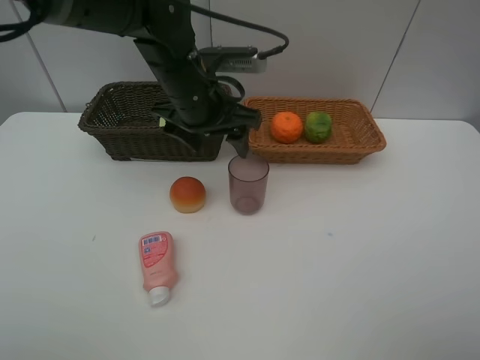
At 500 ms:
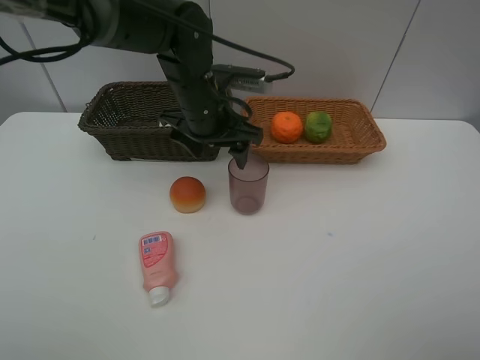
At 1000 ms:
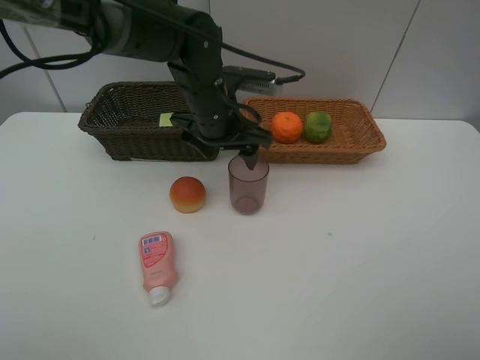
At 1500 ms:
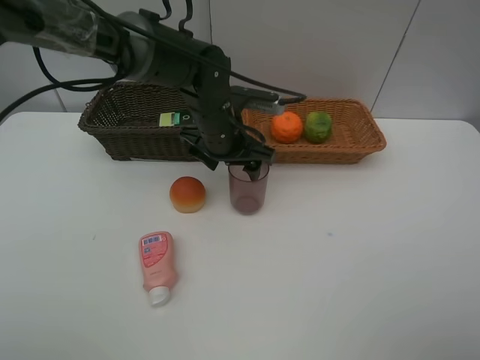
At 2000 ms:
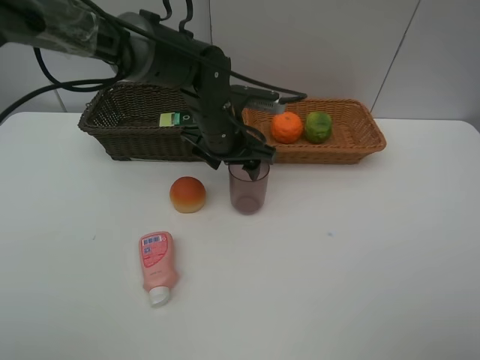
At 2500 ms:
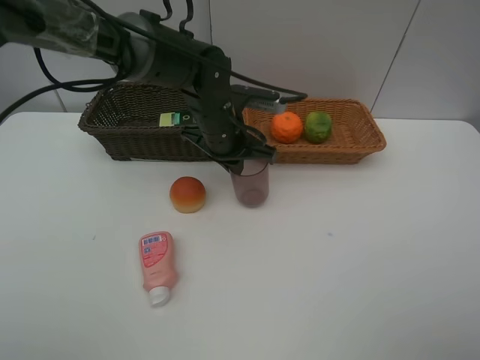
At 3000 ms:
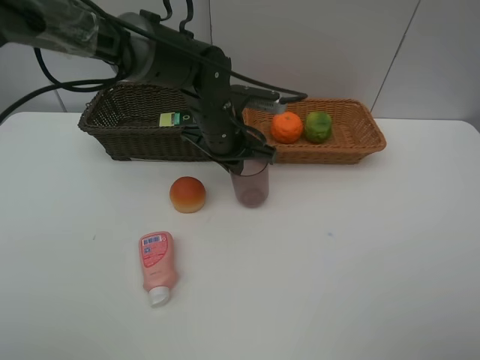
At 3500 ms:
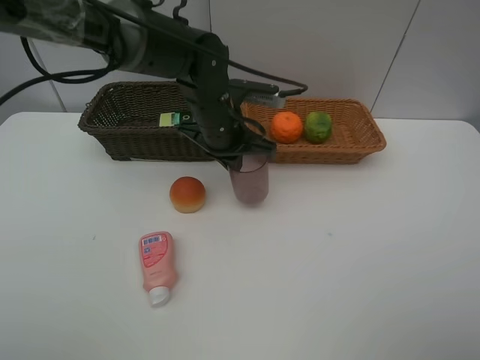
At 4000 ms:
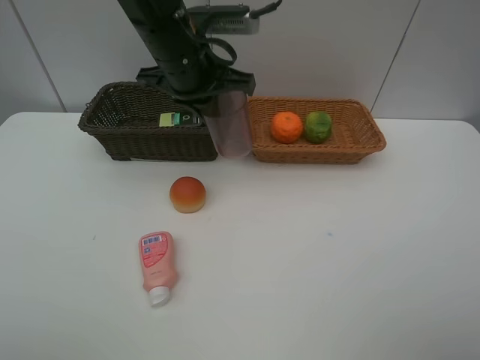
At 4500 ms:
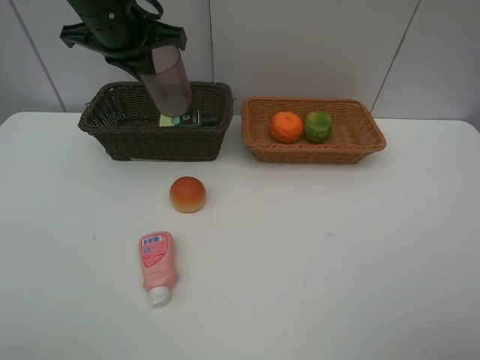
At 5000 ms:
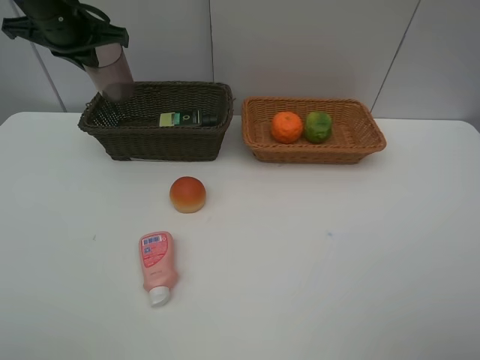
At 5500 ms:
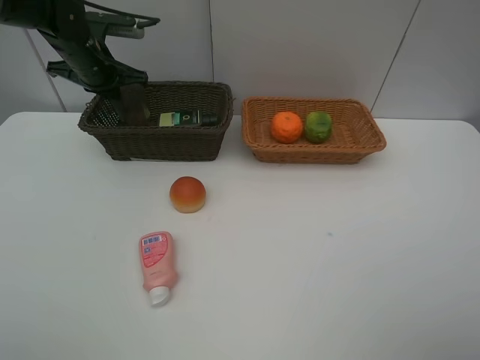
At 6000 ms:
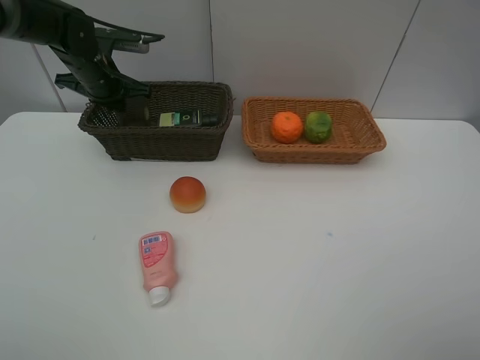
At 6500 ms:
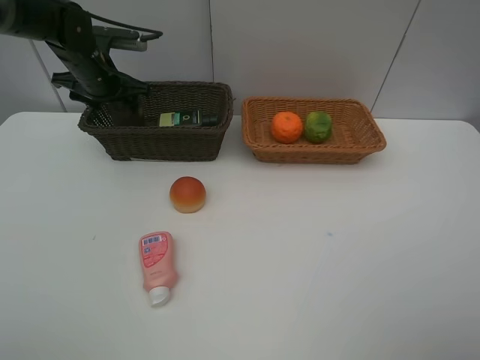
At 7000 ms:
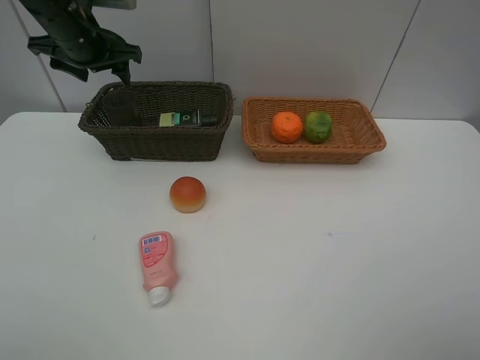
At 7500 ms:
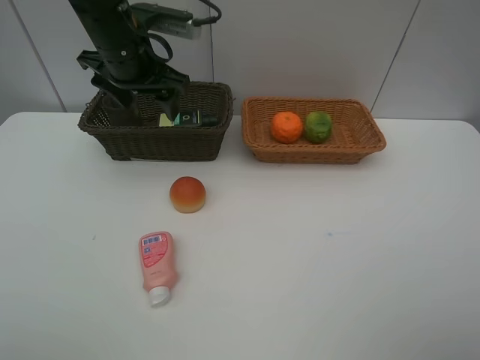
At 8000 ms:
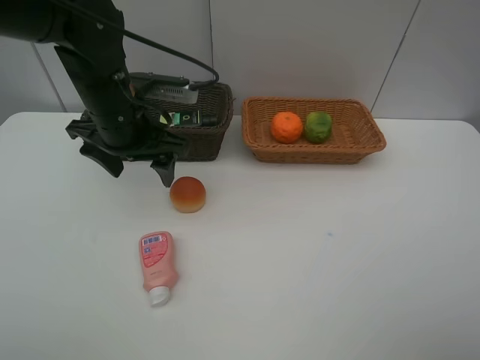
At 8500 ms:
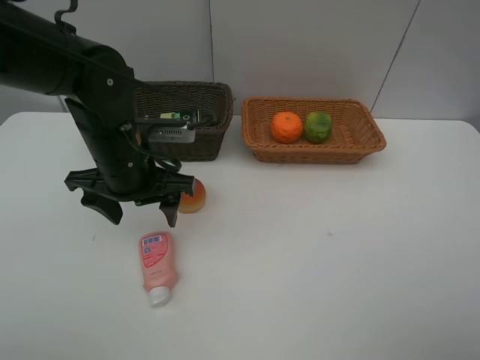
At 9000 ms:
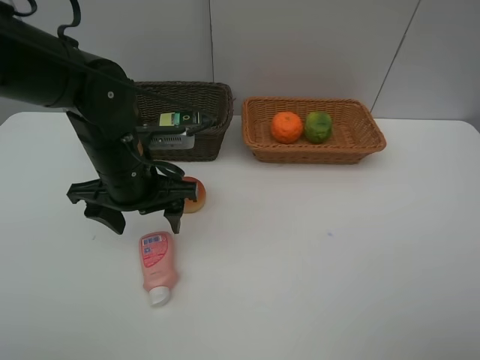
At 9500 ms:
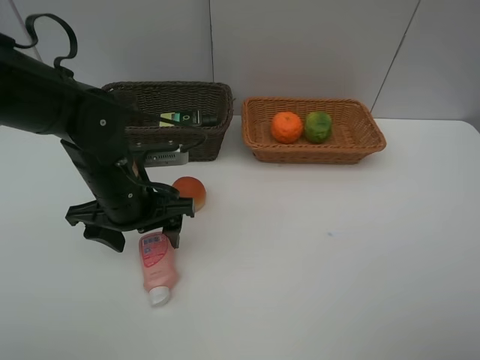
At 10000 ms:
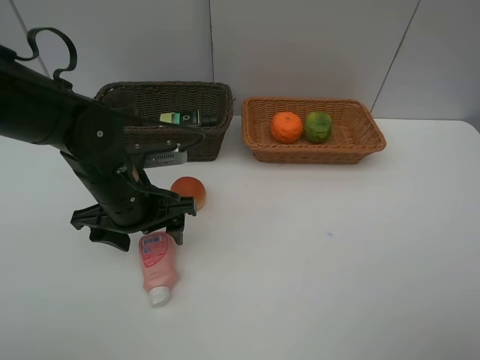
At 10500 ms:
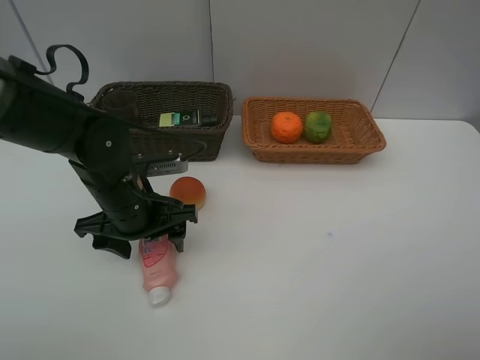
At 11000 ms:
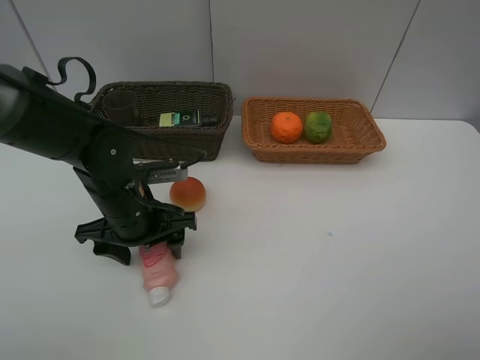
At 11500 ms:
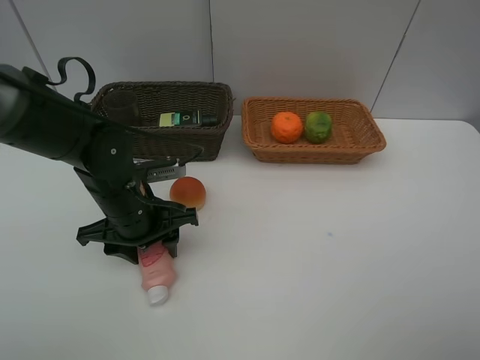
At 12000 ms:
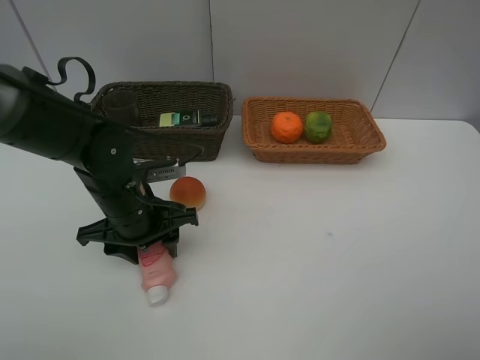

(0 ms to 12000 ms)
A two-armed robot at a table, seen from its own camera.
Task of the whole recording: place multiple objects separately in different baskets.
0 ms - 2000 ms: The left gripper travels downward by roughly 5 cm.
2000 ms - 4000 ms: The left gripper shifts roughly 10 cm upward, and closes.
4000 ms - 6000 ms: The left gripper moves to the left, forward and downward, approximately 20 cm.
6000 ms - 8000 ms: The left gripper goes approximately 20 cm backward and to the right, and opens up.
8000 ms - 10000 ms: The left gripper goes about 10 cm downward and backward.
10000 ms - 12000 ms: The grippers move only a little.

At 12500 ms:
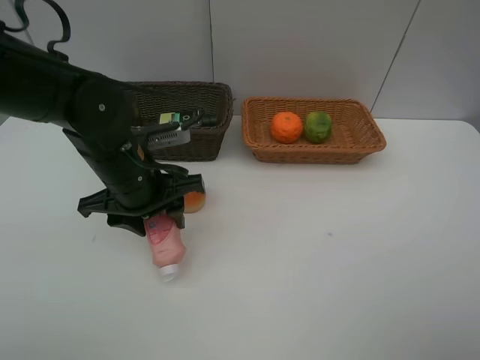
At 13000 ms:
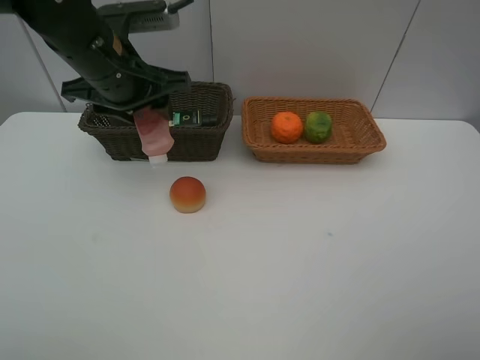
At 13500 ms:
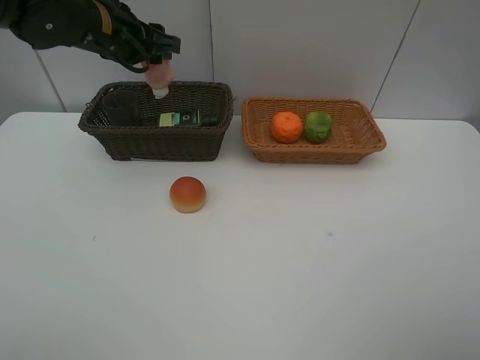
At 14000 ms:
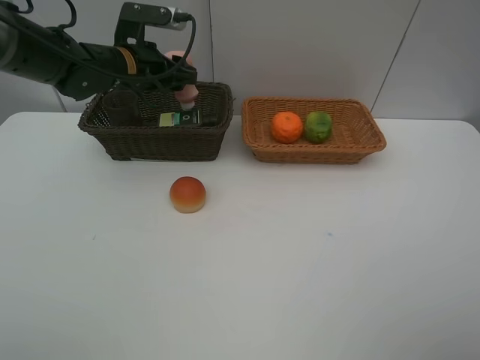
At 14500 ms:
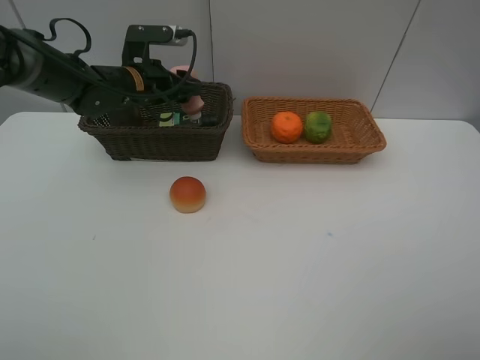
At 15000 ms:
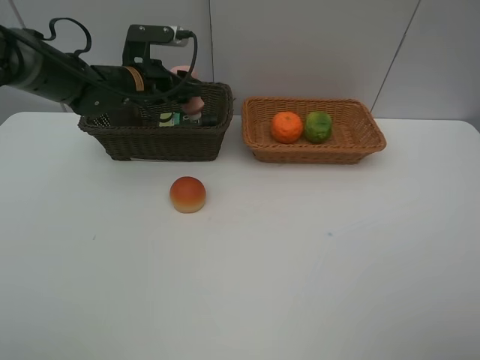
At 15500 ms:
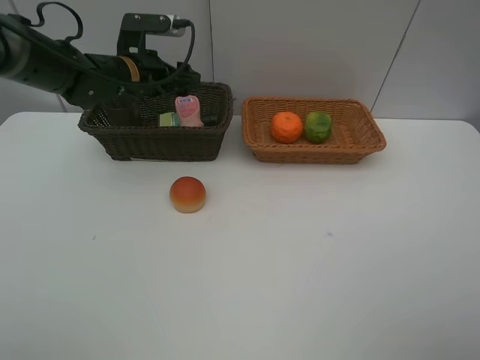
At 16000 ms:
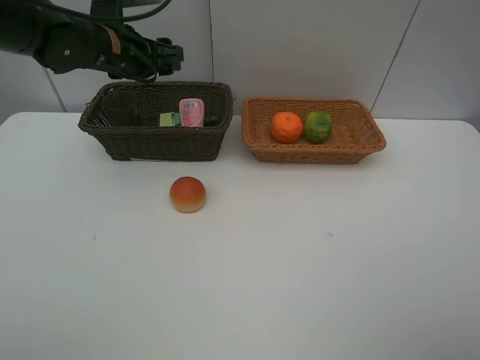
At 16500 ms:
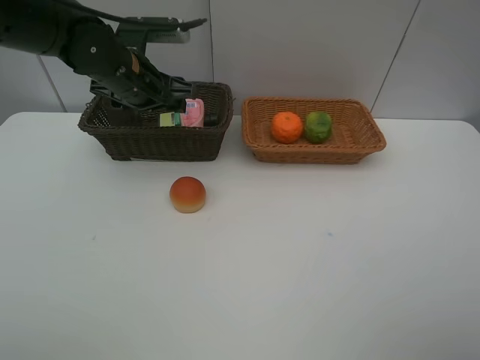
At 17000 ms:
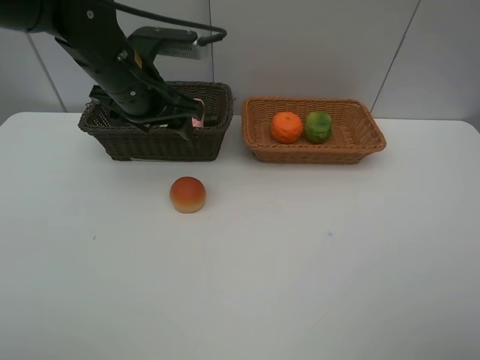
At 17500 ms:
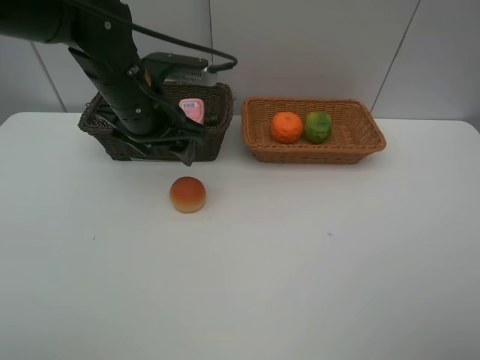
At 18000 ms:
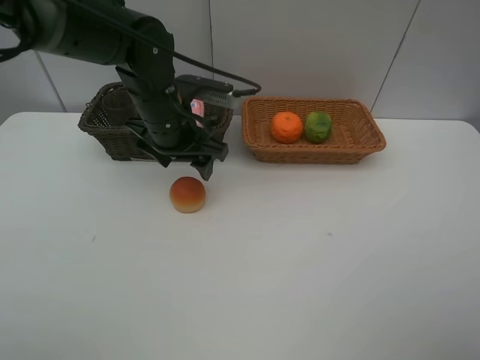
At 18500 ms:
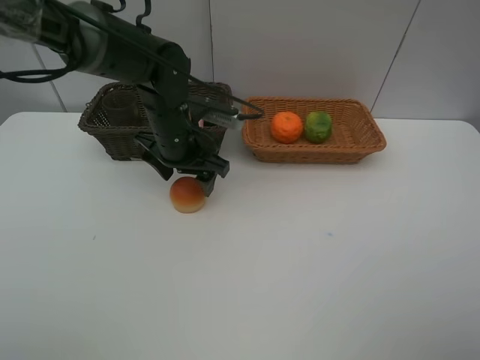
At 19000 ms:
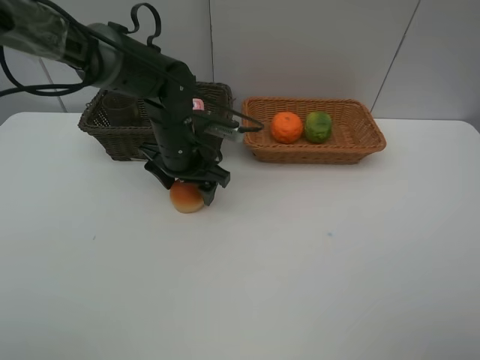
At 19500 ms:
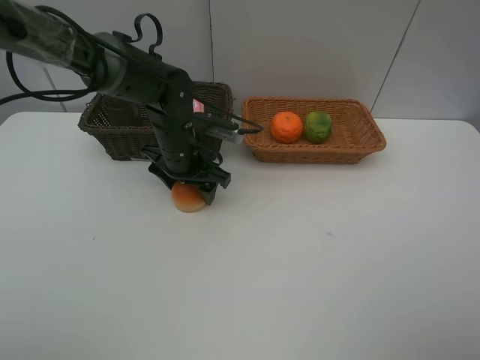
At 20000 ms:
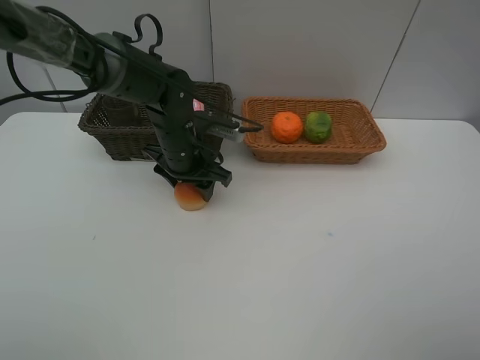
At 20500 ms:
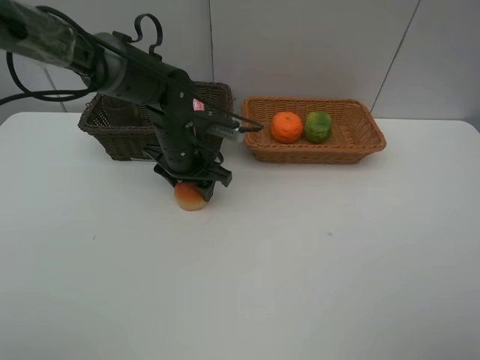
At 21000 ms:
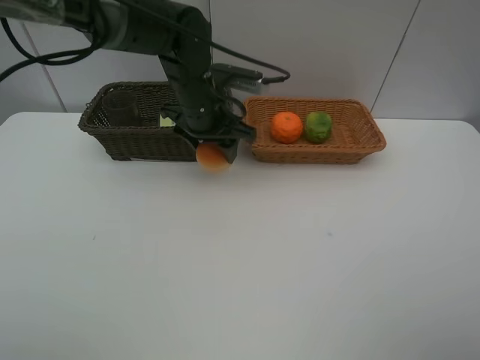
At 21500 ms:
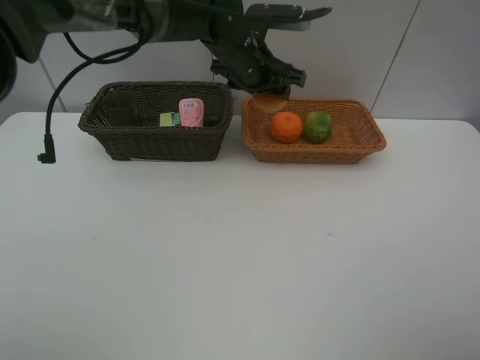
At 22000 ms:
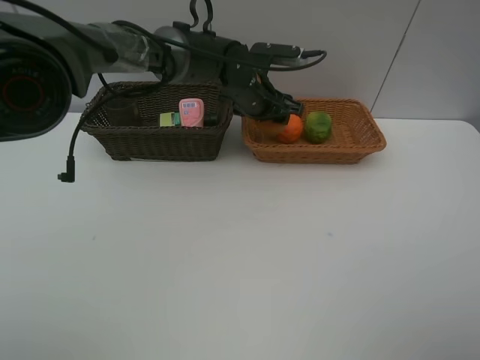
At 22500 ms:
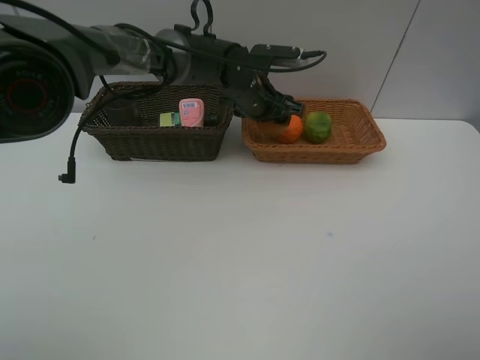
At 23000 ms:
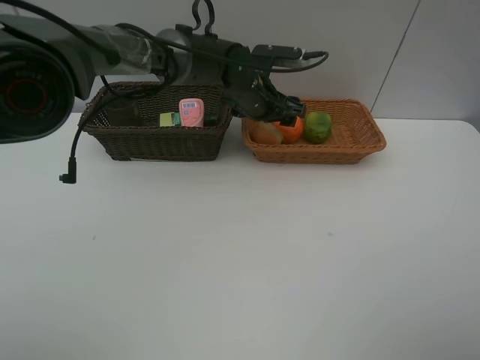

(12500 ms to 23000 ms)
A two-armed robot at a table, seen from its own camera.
Task of the whole recording: place multiple objects separately in different baskets.
12500 ms - 14500 ms: The left gripper is displaced forward by some 15 cm.
14500 ms - 16500 ms: The left gripper goes some 5 cm backward.
16500 ms - 19000 ms: The left gripper heads downward and to the right, covering some 10 cm.
19000 ms - 21000 ms: The left gripper heads upward, covering about 5 cm.
21000 ms - 23000 ms: The left gripper goes about 10 cm to the right and forward.

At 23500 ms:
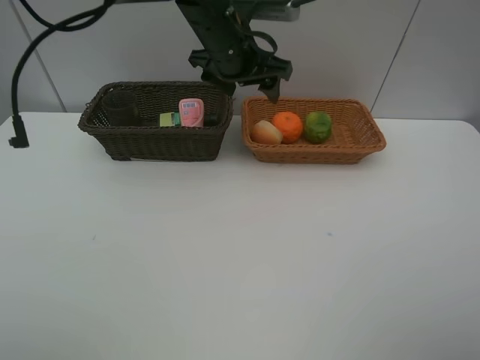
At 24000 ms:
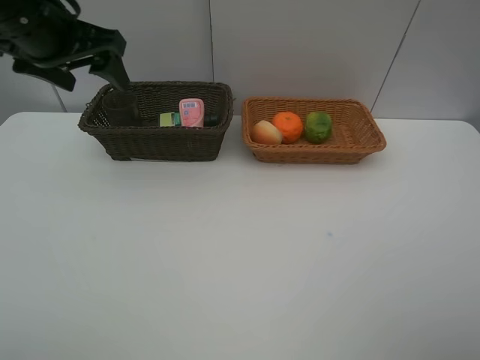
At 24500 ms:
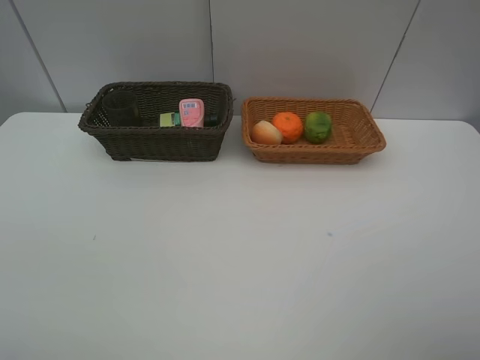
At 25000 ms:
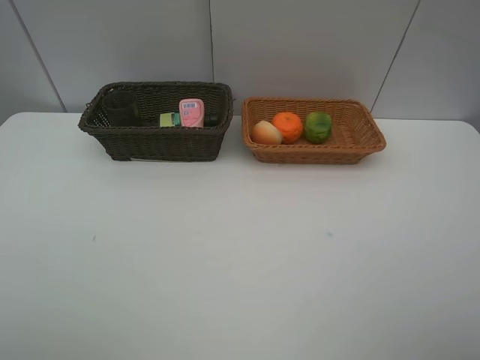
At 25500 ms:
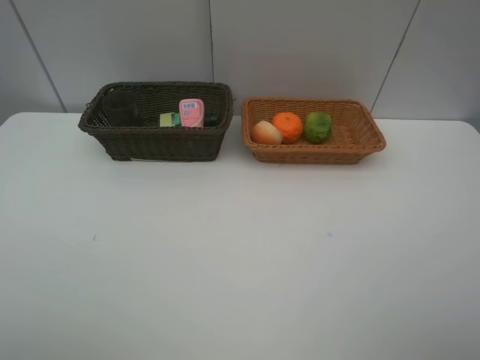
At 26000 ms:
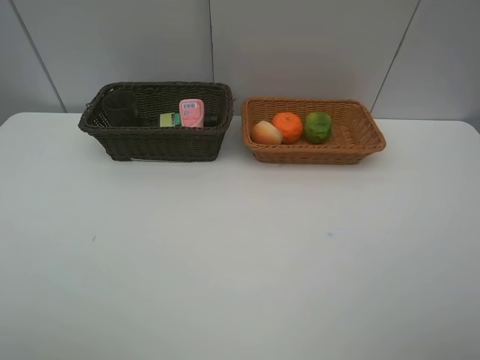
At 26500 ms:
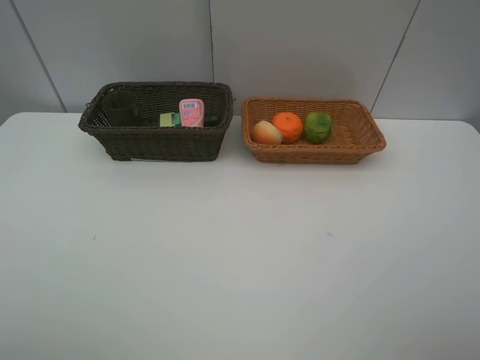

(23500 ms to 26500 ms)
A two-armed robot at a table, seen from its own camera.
Task of the whole recording: place multiple objects separately in different baskets.
23500 ms - 25000 ms: The left gripper heads backward and to the left, covering about 50 cm.
